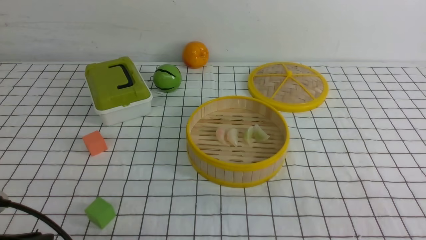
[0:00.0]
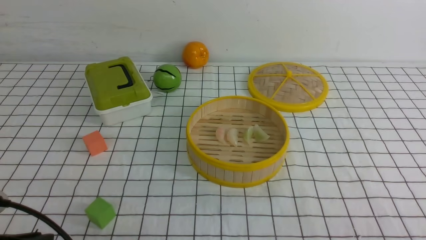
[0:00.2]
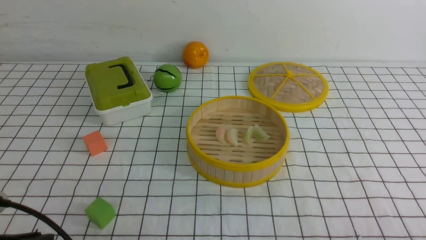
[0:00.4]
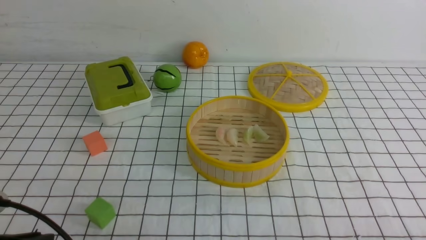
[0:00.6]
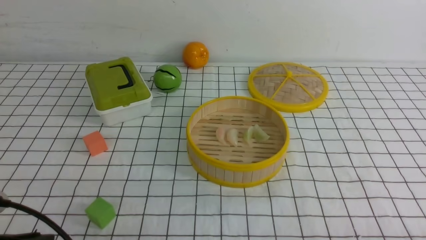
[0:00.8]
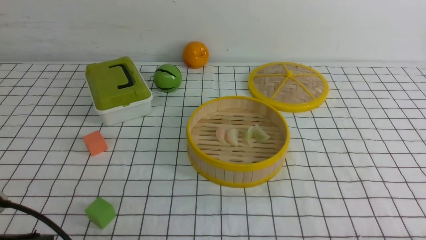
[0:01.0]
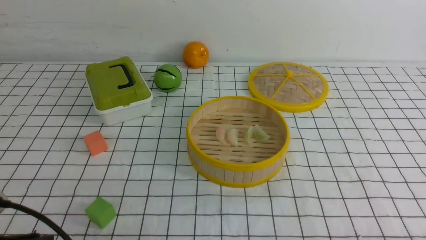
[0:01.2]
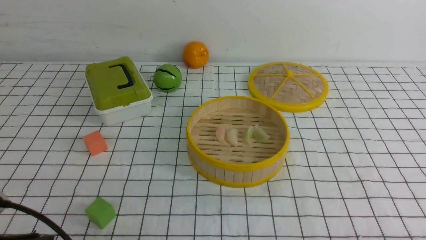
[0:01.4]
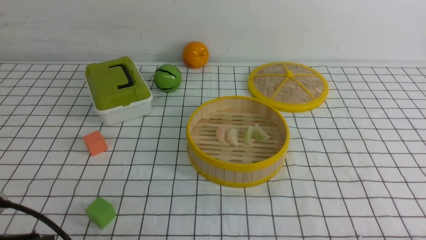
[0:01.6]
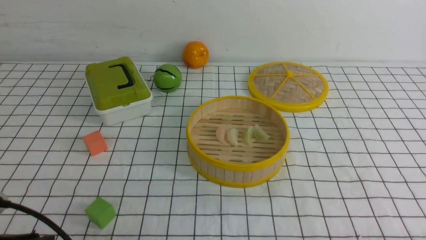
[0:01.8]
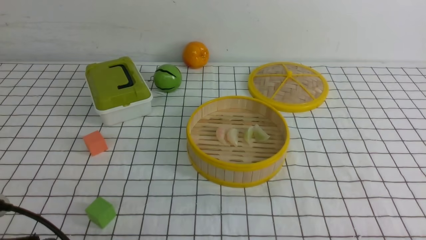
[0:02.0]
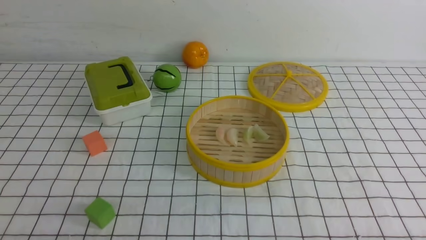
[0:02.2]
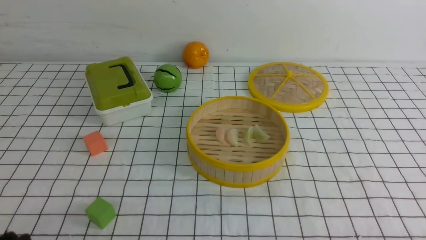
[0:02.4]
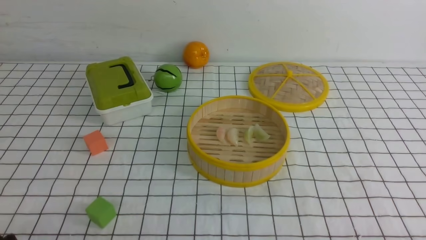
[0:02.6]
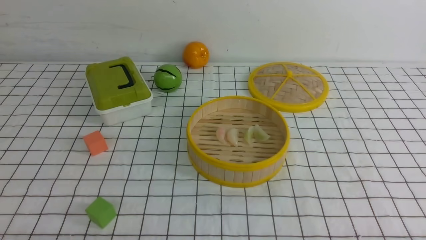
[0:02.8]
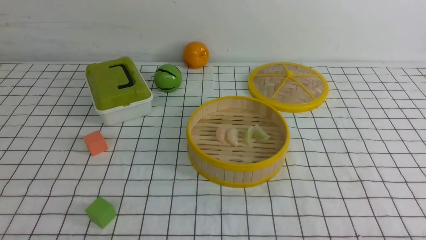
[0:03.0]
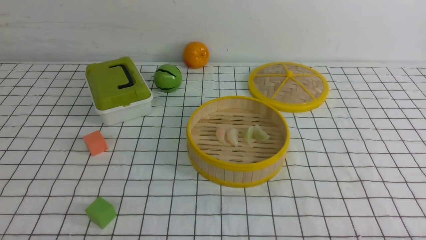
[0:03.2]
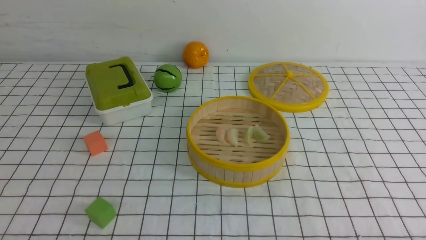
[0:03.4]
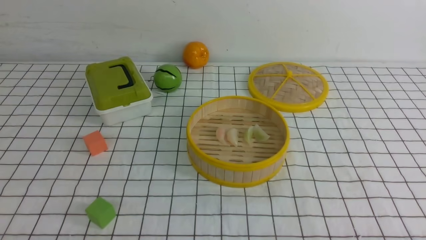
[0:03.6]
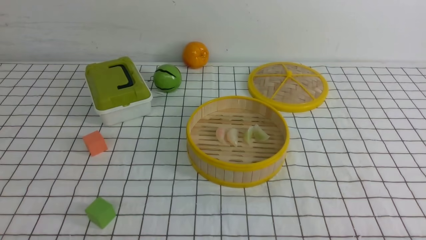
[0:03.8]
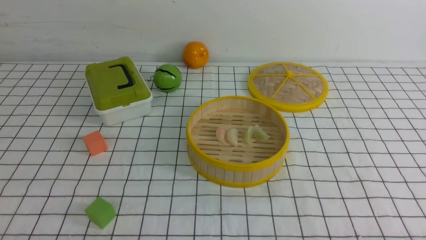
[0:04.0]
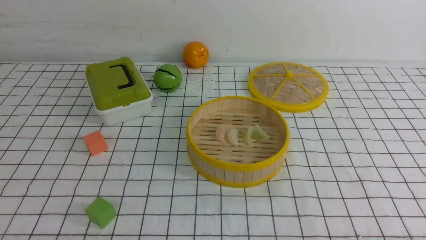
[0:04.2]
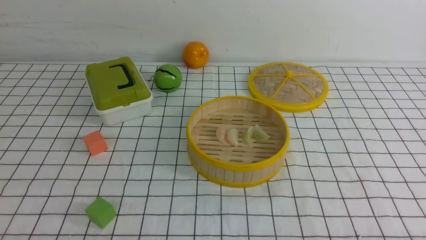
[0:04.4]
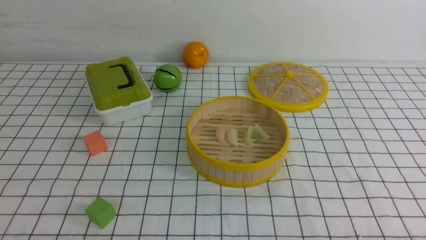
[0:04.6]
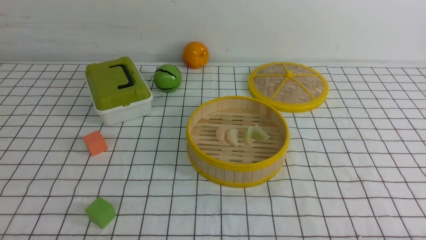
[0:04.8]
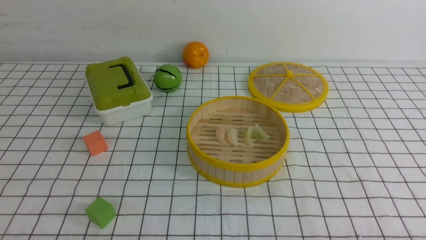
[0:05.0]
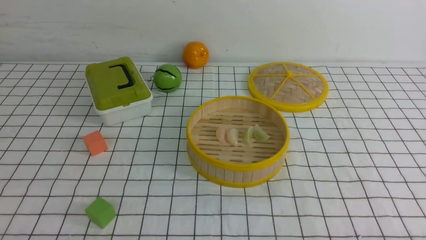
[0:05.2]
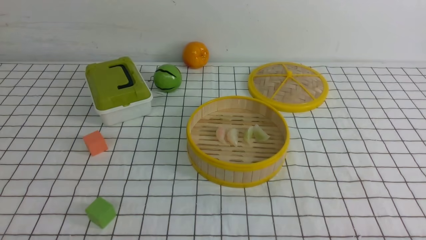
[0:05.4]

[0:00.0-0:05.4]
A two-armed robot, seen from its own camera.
Task of the whole recording: put the dumplings into the steamer on the table with the white tablecloth.
0:01.4 to 0:02.8: The left gripper heads downward, covering some 5 cm.
0:04.0 to 0:05.4: Both grippers stay about where they are.
